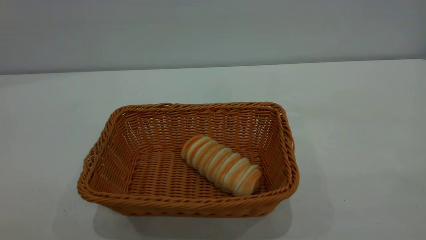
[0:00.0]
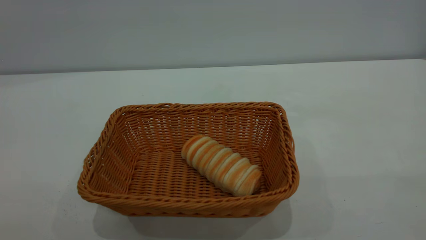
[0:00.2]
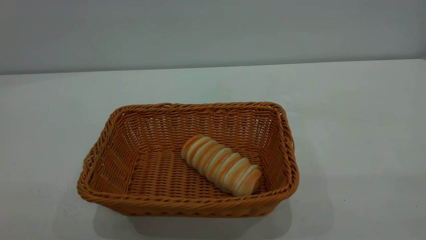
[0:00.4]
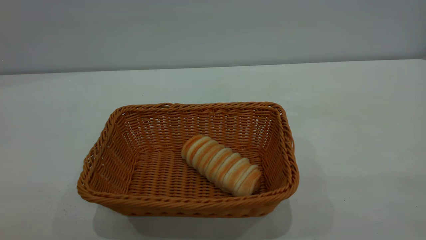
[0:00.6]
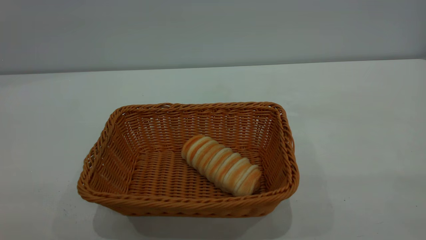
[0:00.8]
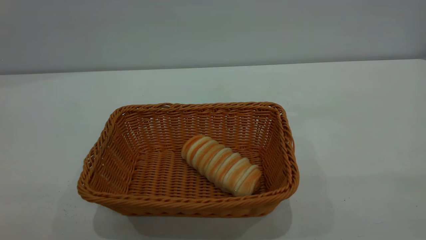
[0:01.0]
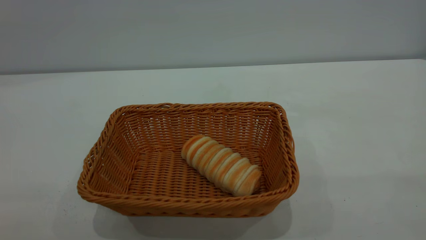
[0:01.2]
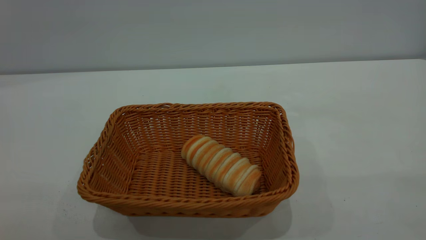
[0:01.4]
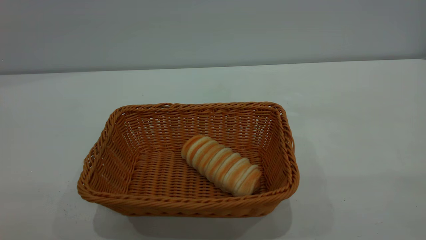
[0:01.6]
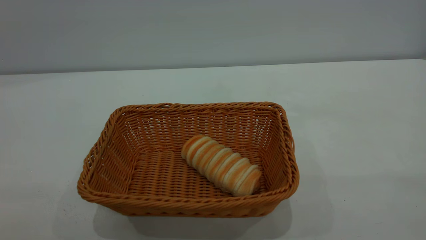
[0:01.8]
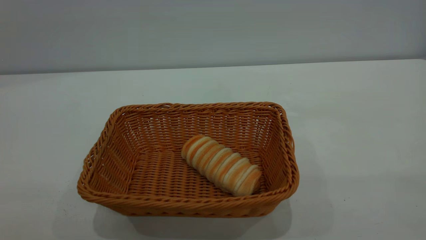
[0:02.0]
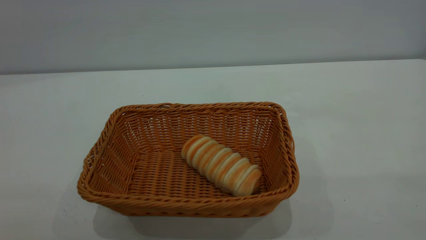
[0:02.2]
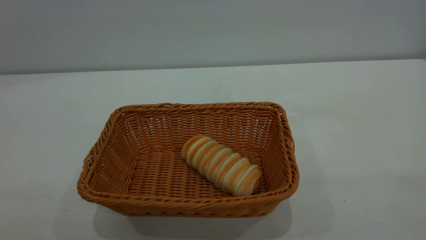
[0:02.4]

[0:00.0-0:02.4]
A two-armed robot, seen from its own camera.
Task of the whole recording: One hand grasps the yellow basket and places it in the middle of the table, while the other hand picks up the long bread and puts it into the yellow basket.
0:01.2 to 0:02.4: Both grippers stay about where they are.
